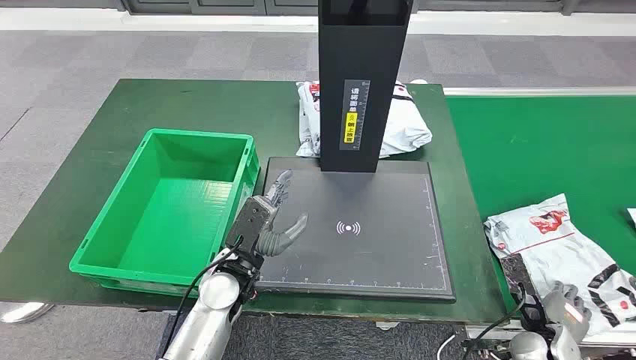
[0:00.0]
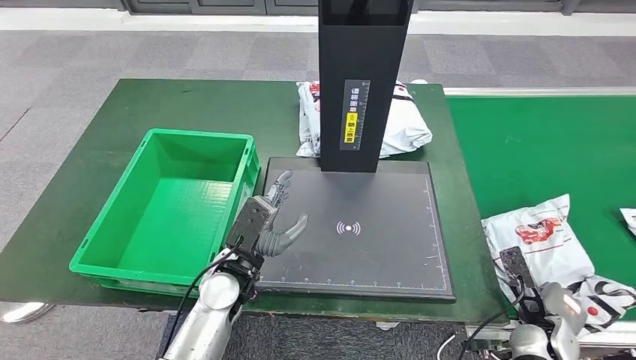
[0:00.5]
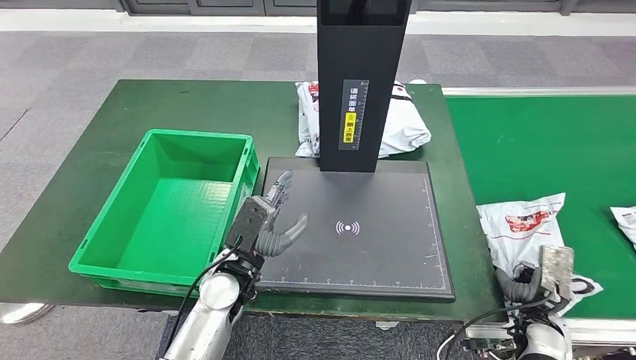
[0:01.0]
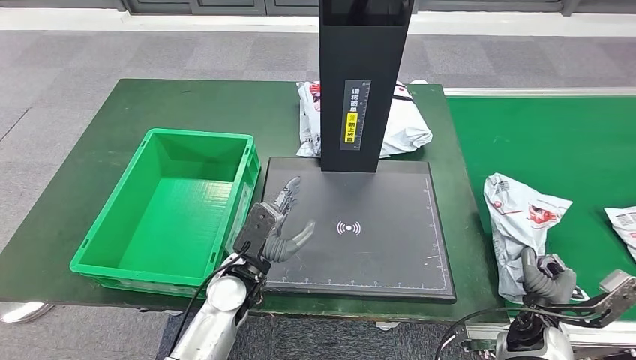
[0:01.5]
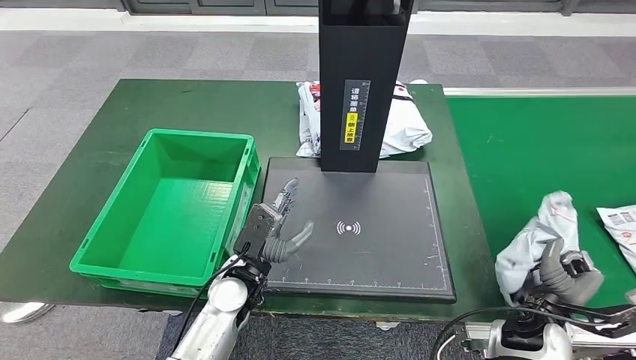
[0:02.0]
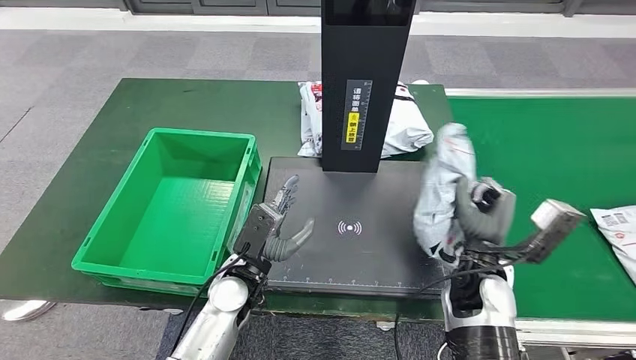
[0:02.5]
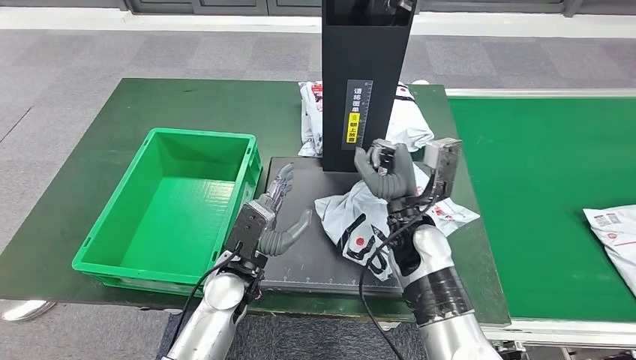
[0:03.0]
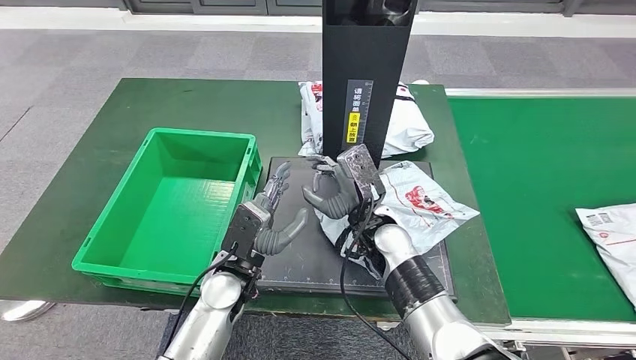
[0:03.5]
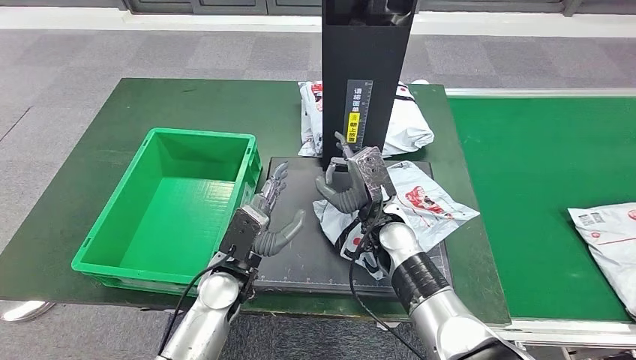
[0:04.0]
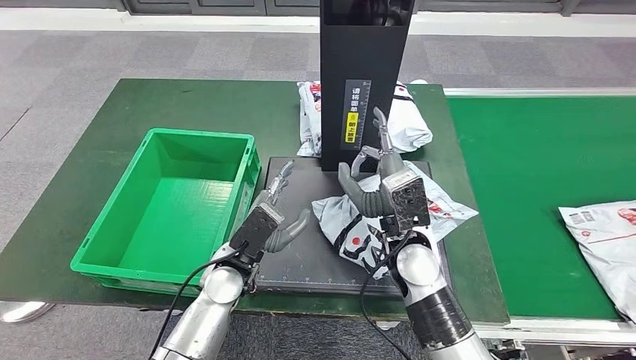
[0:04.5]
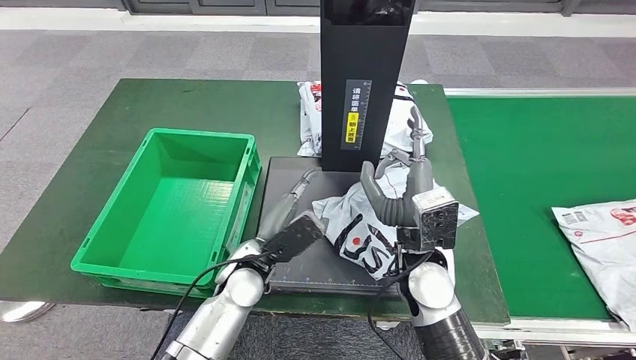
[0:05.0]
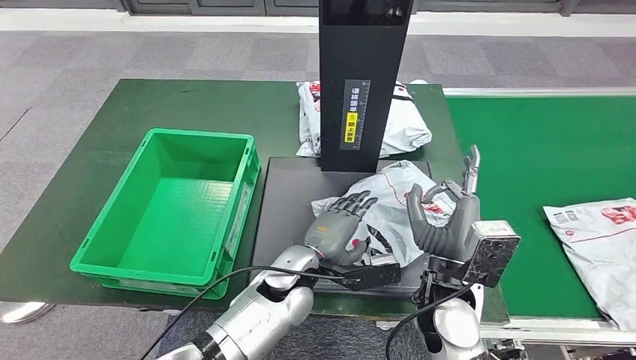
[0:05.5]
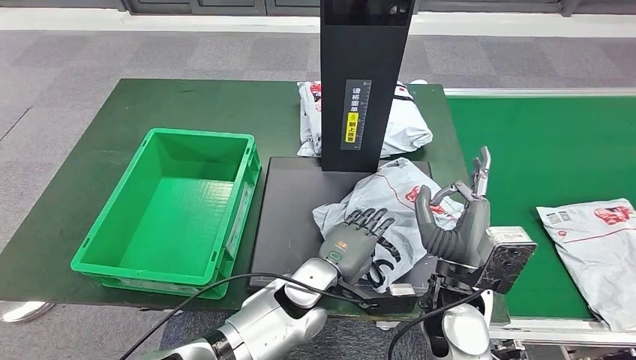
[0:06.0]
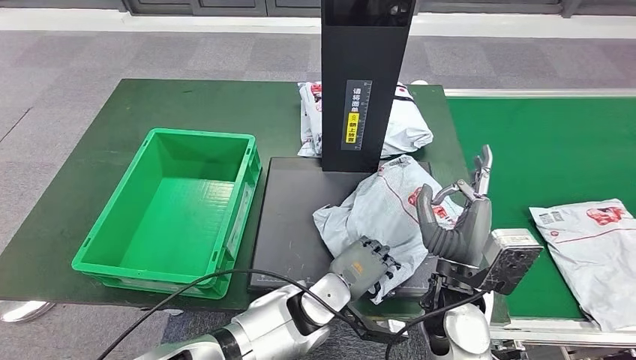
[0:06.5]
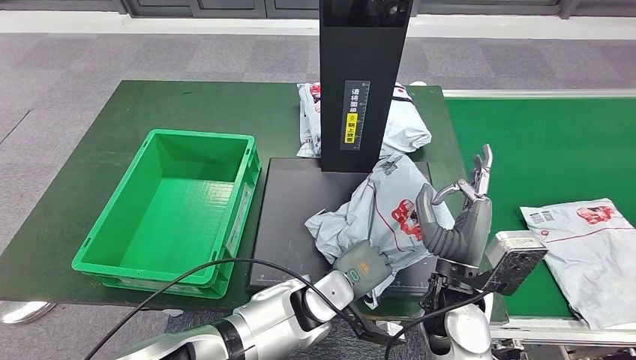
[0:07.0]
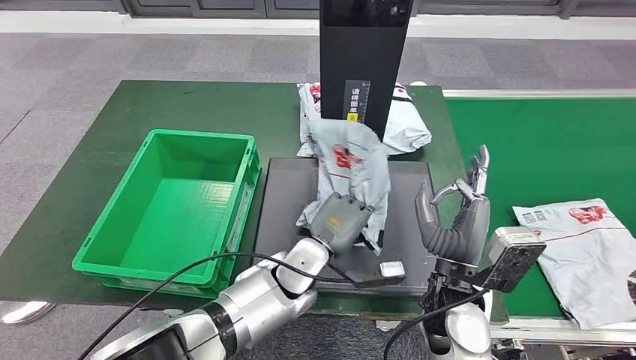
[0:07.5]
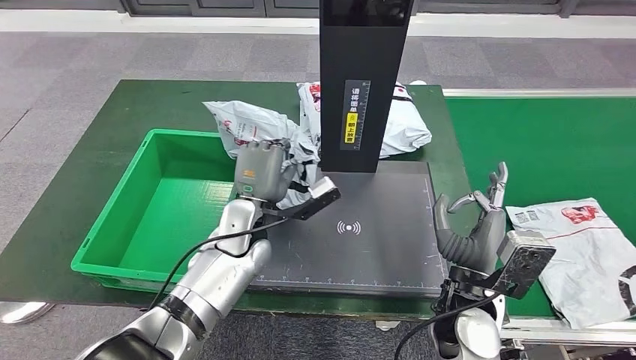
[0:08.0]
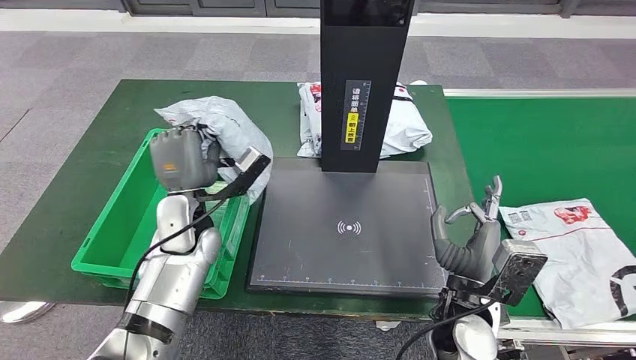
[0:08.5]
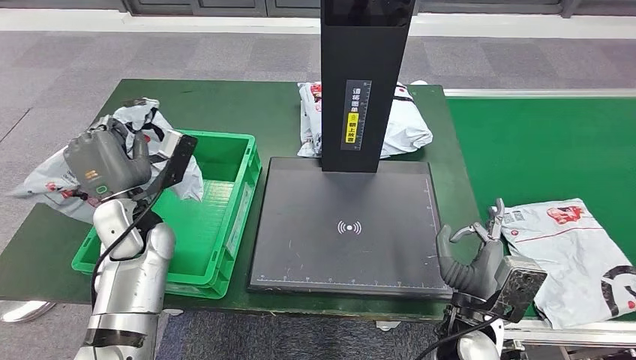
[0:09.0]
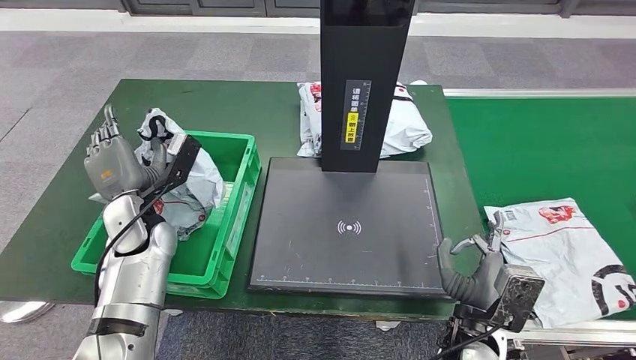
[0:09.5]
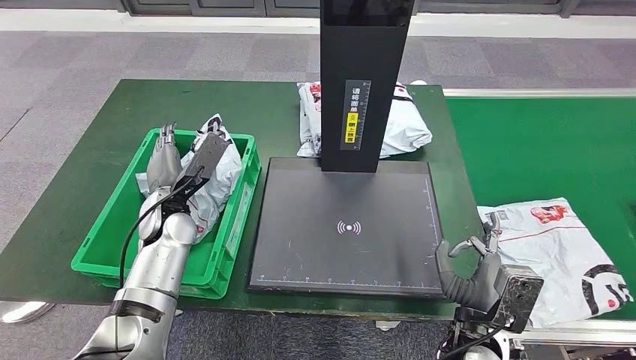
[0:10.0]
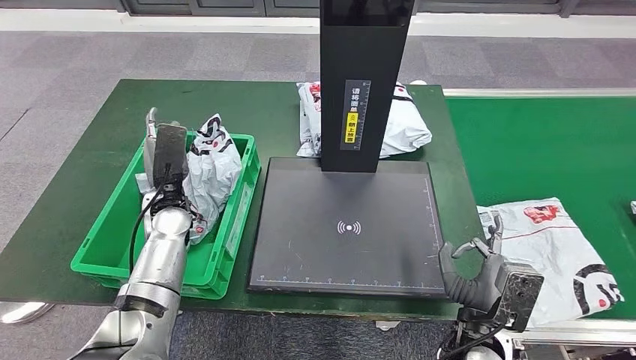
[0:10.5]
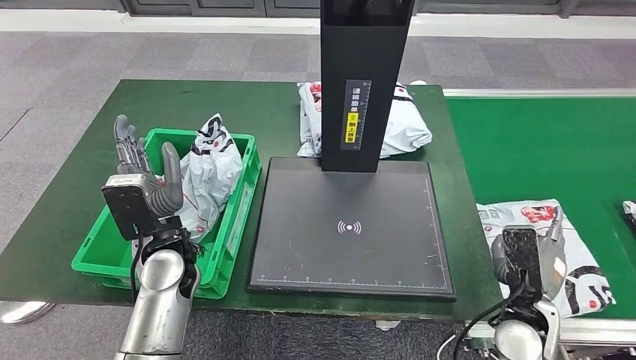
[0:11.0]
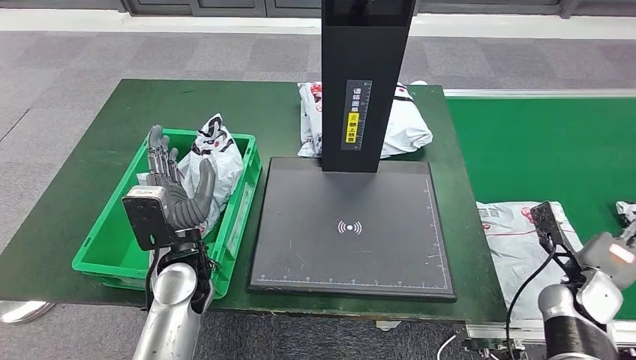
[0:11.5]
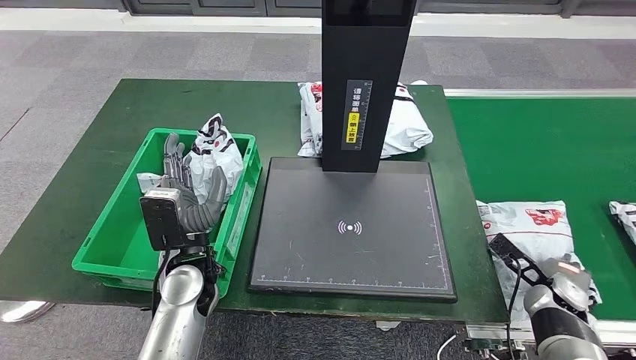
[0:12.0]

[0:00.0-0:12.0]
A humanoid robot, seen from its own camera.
Step, 0:00.0 to 0:02.0: Take the parcel off the conveyor belt.
Step, 0:02.5 to 0:03.0: Place the parcel onto the inbound machine.
Step, 0:03.5 to 0:07.5: Pick up the parcel from the inbound machine.
Step, 0:08.0 to 0:10.5: Put the parcel inside the courier box.
0:10.0 to 0:12.0: The left hand is displaced backward and to the right by approximately 10 cm. The right hand goes about 25 cm to the right and forward.

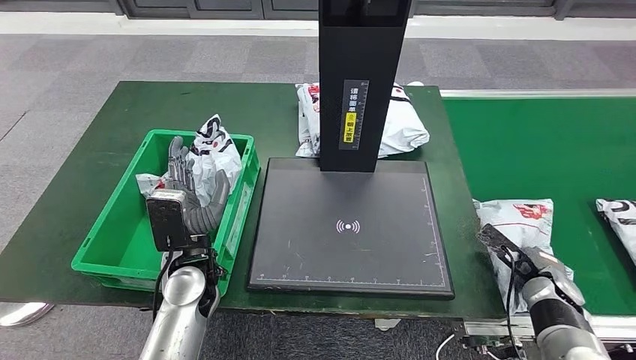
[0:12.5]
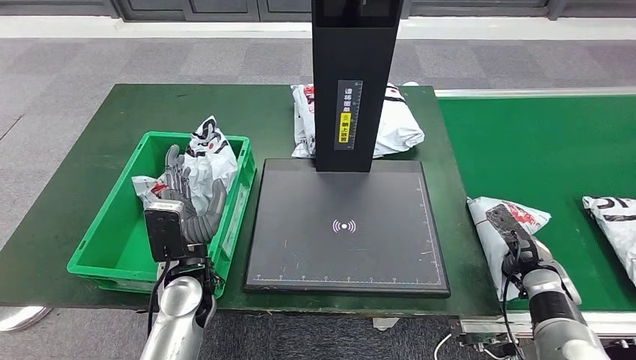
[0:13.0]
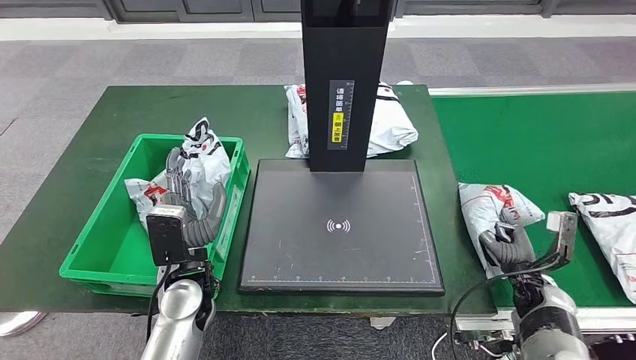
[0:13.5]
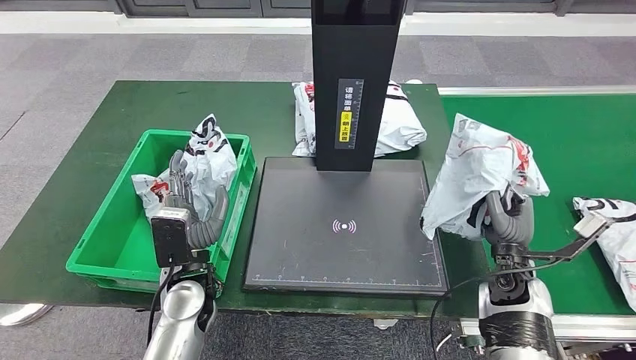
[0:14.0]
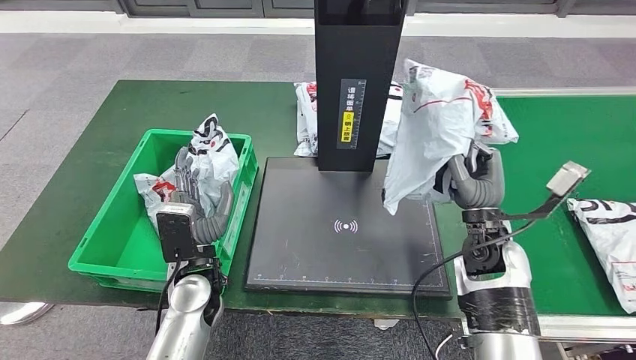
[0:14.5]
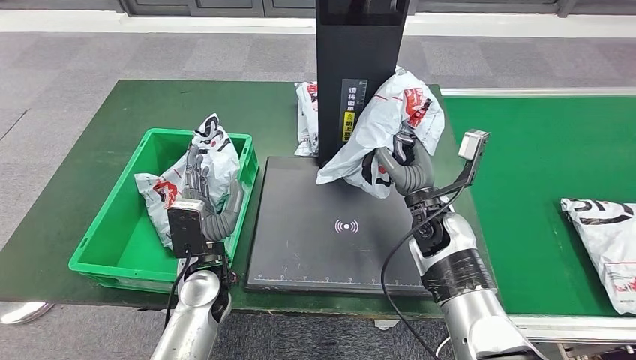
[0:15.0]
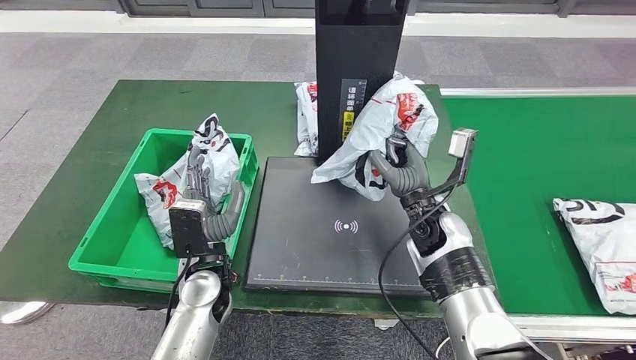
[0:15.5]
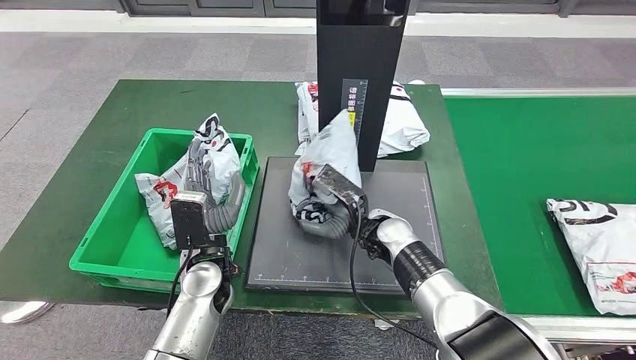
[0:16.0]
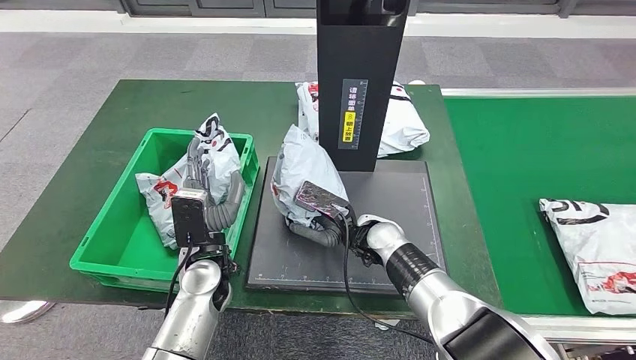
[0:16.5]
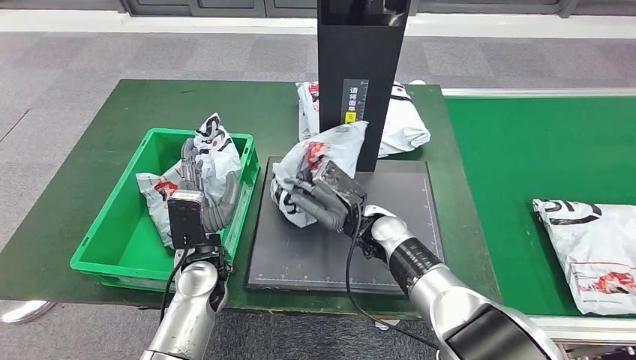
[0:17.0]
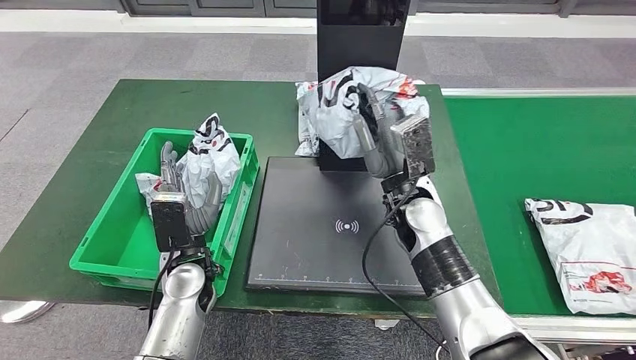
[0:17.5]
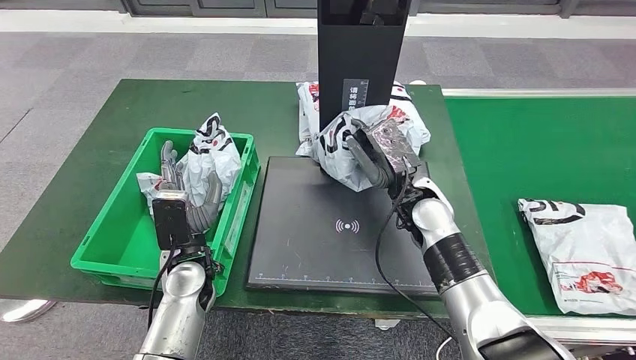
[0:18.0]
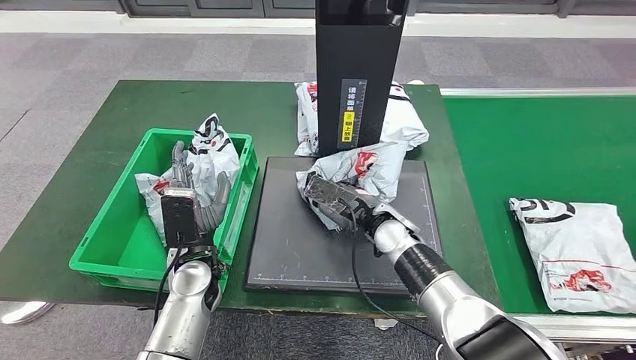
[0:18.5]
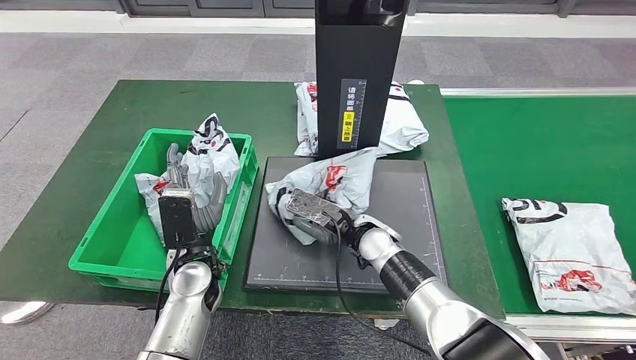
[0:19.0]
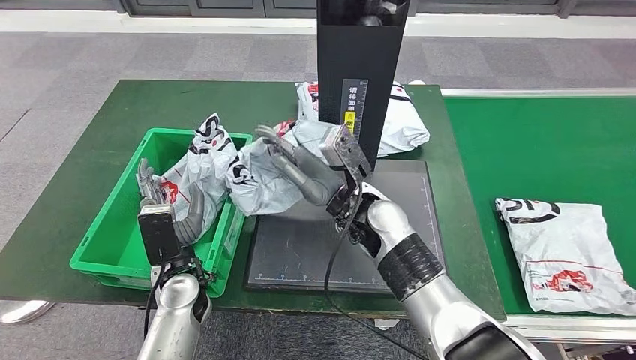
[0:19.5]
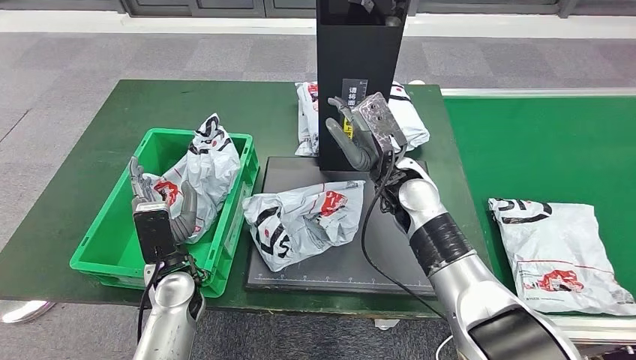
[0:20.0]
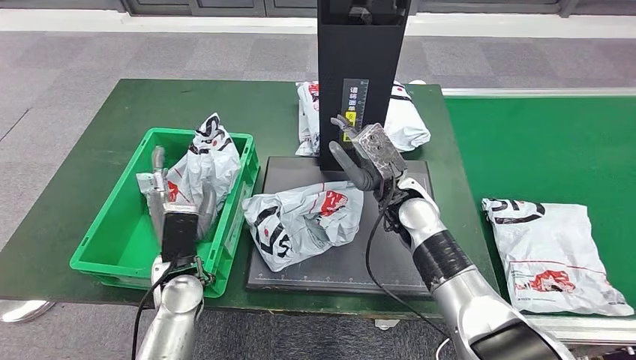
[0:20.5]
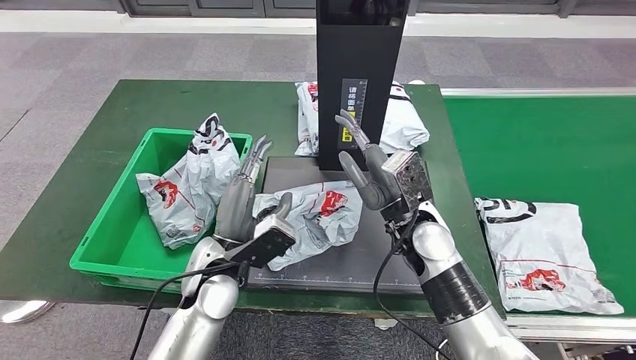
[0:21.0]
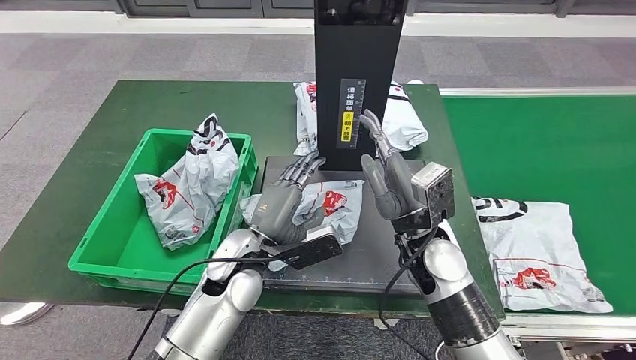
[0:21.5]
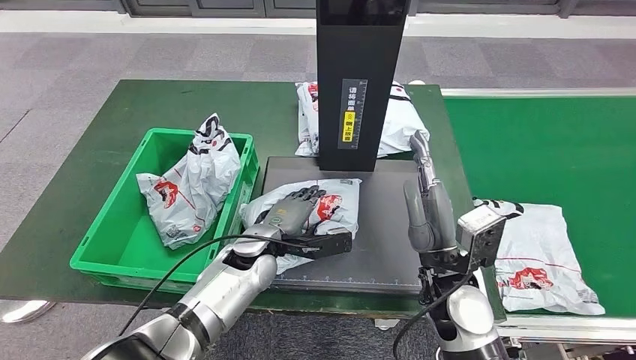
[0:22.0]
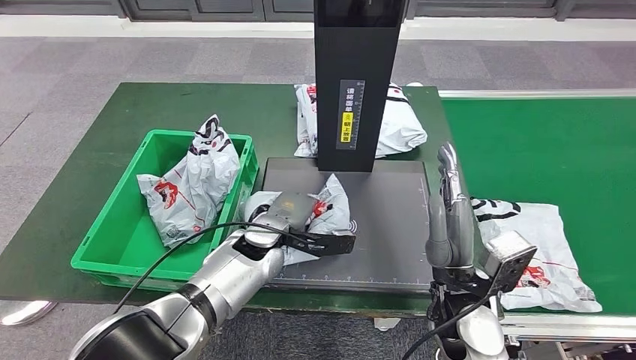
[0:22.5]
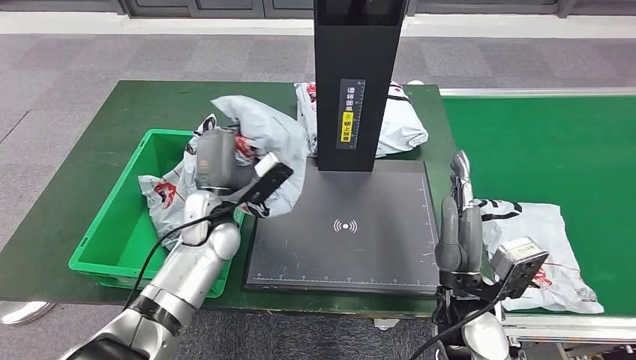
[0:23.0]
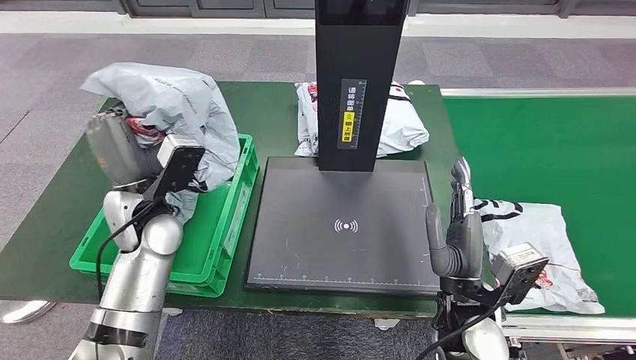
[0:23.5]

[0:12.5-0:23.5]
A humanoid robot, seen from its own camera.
Step, 0:14.5 to 0:20.0: Place the parcel onto the inbound machine.
Step, 0:20.5 to 0:23.0: Pick up the parcel from the inbound machine.
